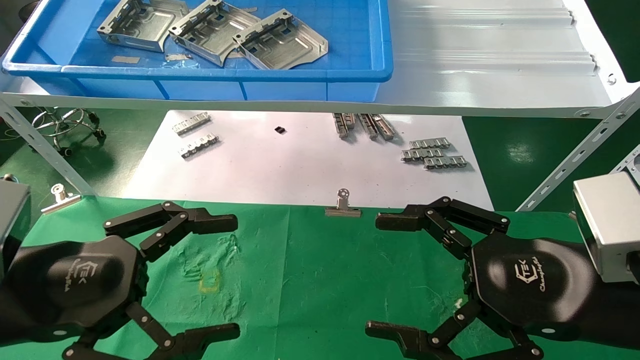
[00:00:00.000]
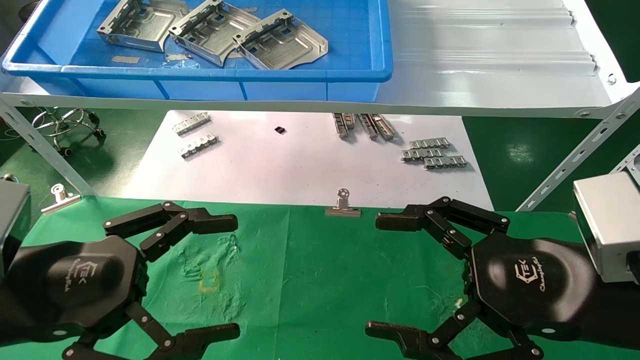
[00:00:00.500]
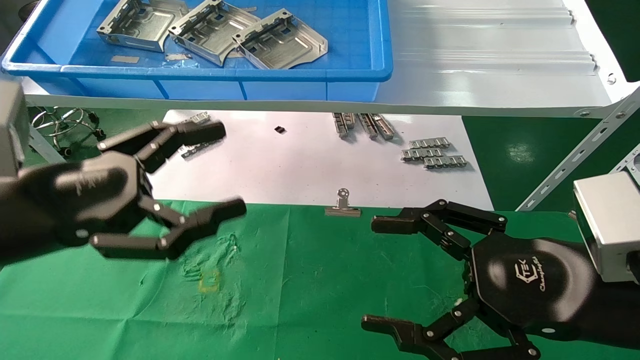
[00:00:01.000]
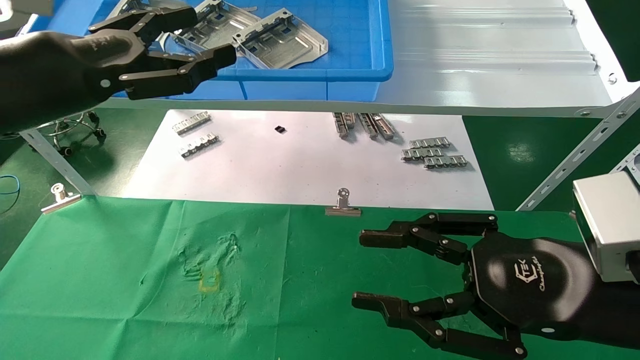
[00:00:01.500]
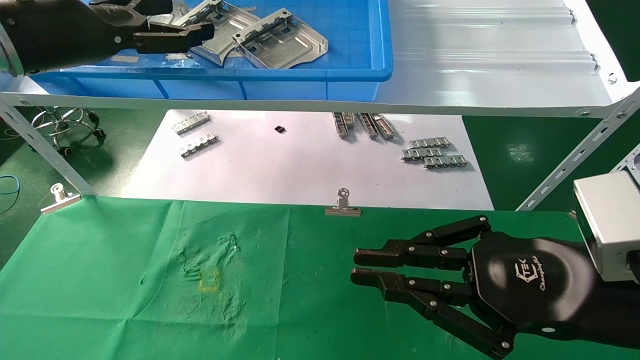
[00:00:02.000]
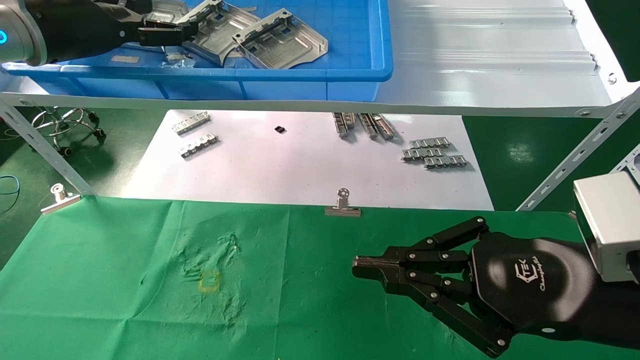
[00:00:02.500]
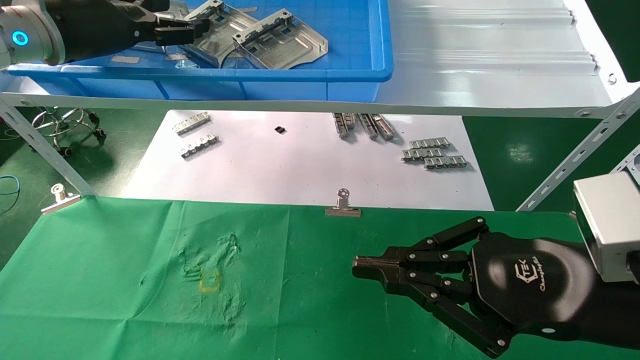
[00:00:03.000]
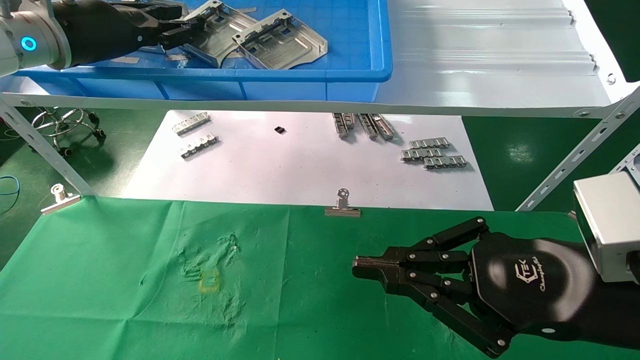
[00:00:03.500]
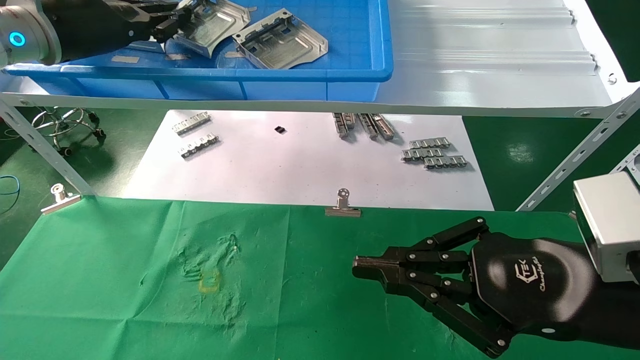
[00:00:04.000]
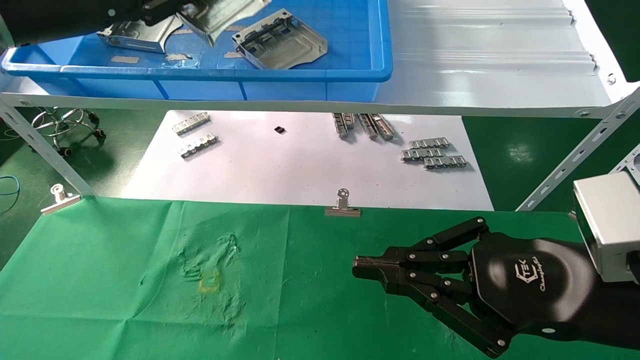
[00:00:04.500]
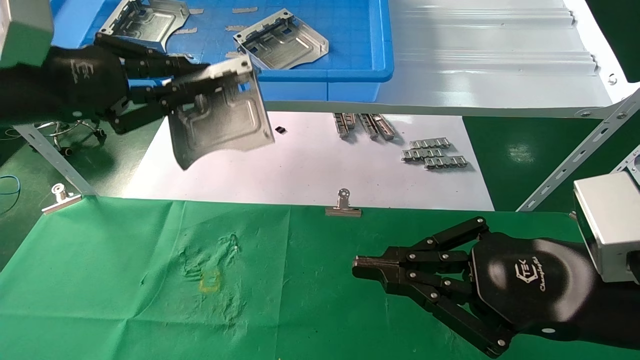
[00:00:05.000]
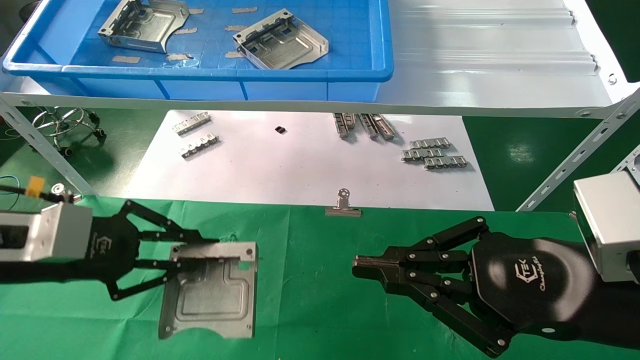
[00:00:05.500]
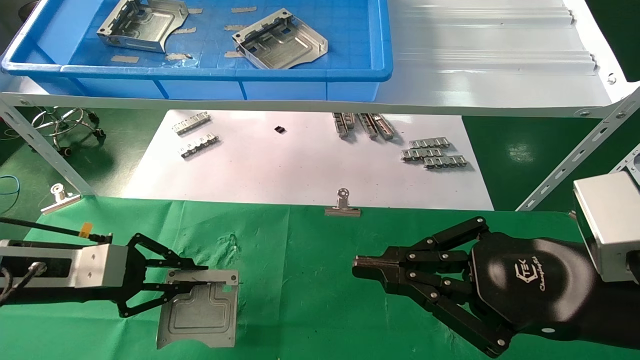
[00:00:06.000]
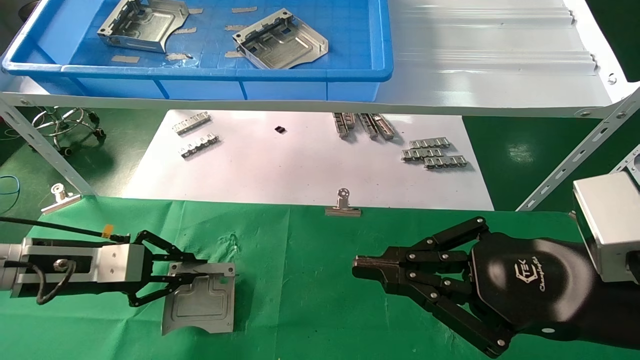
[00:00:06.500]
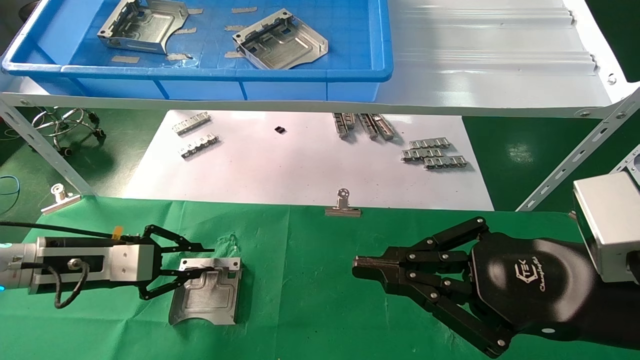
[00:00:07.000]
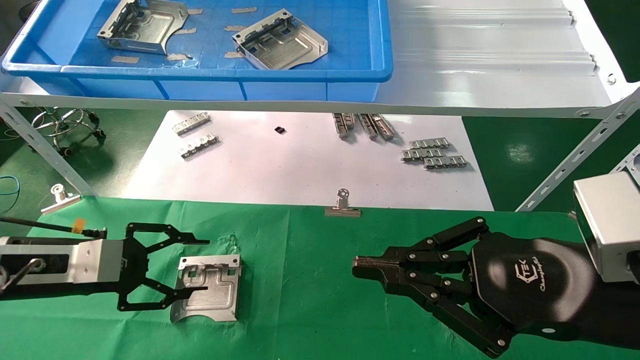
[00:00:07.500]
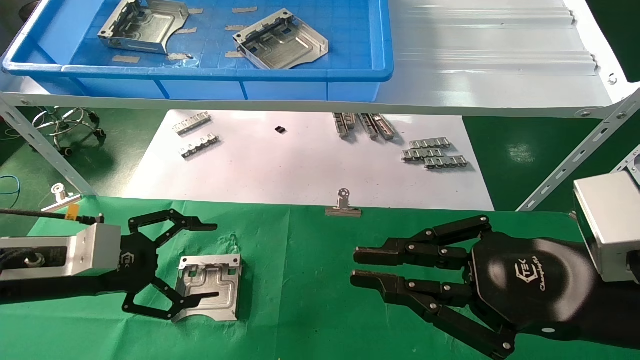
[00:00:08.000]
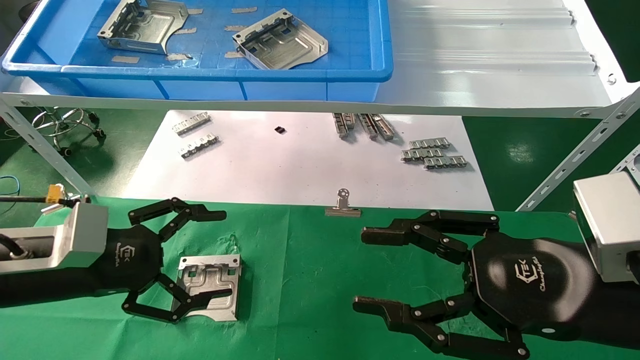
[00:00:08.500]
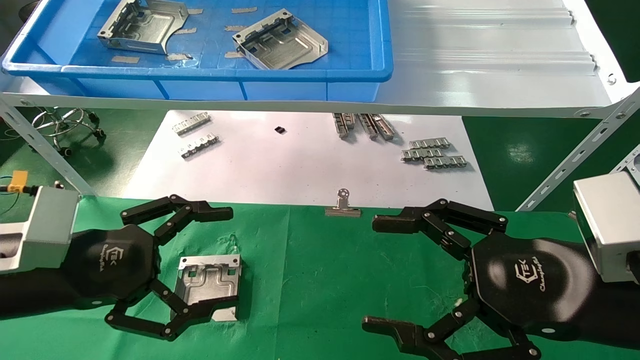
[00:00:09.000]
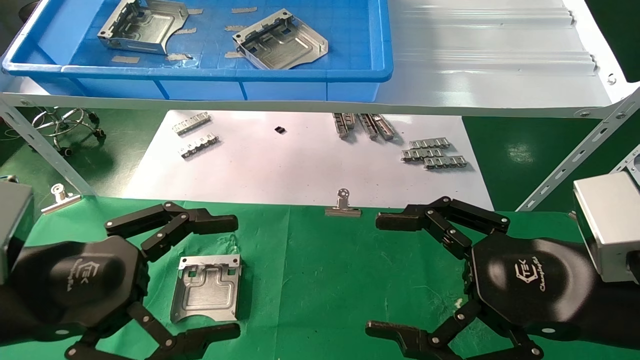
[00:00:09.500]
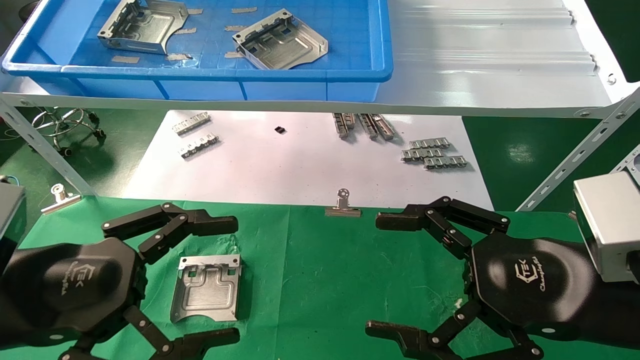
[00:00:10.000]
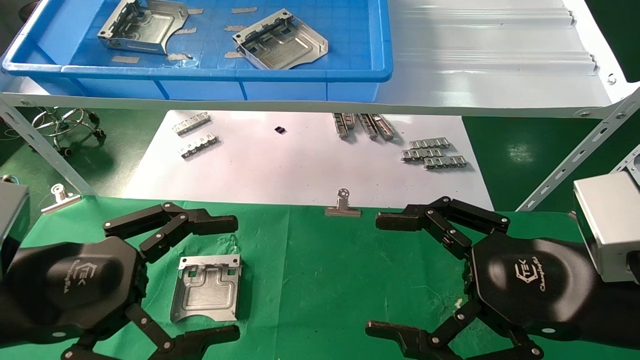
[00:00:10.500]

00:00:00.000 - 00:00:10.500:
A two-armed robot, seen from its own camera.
Task of the whole recording: use the mechanical arm to pick up the parts and place them on the table.
Step, 00:00:01.500 - 00:00:03.500: Pick up the hard drive bracket from the feeding area.
Step, 00:00:04.000 - 00:00:07.000: Place the hard drive bracket into the box.
00:00:00.000 - 00:00:02.000: The right gripper closes, while the left gripper heads upward and forward, covering roughly 25 cm.
00:00:02.000 - 00:00:04.000: The left gripper closes.
00:00:04.000 - 00:00:06.500: The left gripper is displaced downward by about 30 cm.
00:00:06.500 - 00:00:08.500: The right gripper opens up. Meanwhile the left gripper heads backward, covering approximately 5 cm, and opens its fingers.
00:00:08.500 - 00:00:10.500: The right gripper opens its fingers. Meanwhile the left gripper shifts approximately 10 cm backward.

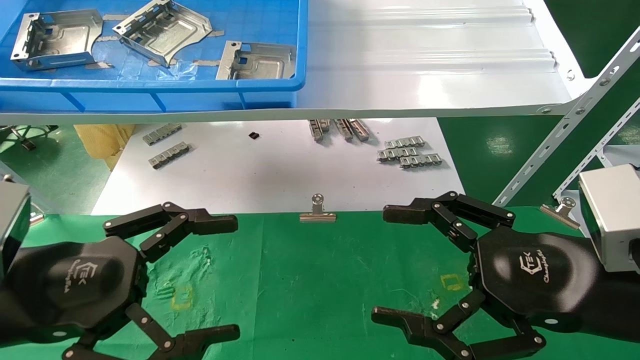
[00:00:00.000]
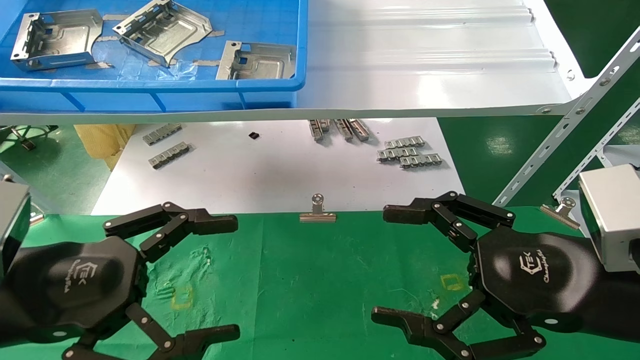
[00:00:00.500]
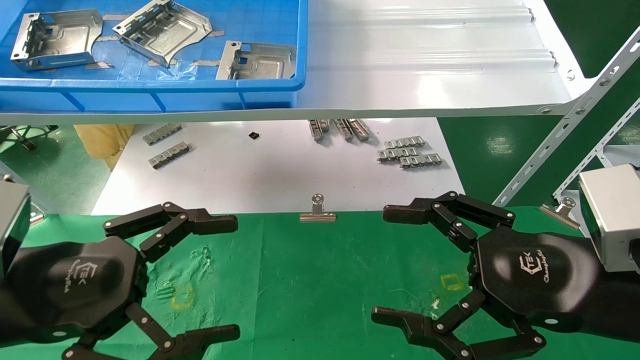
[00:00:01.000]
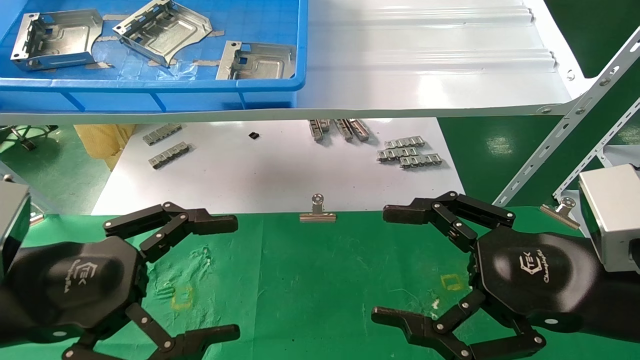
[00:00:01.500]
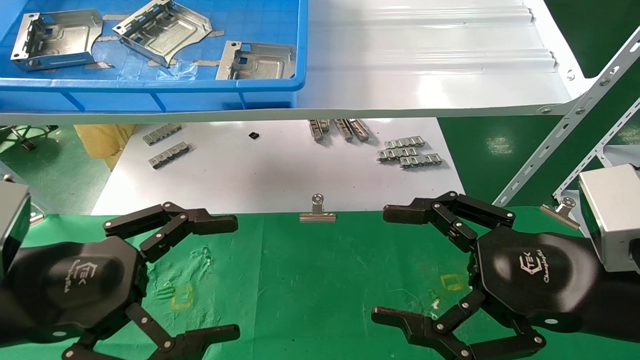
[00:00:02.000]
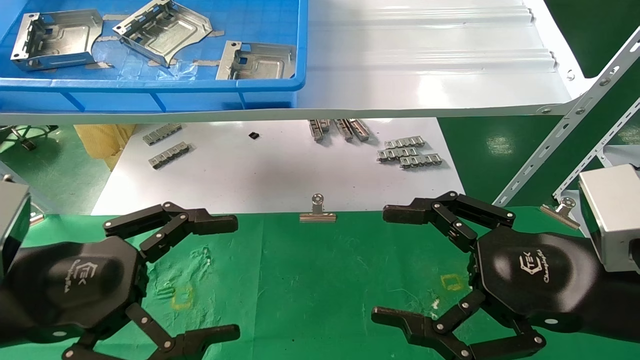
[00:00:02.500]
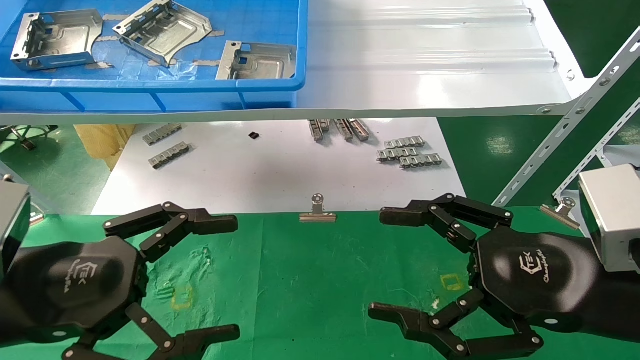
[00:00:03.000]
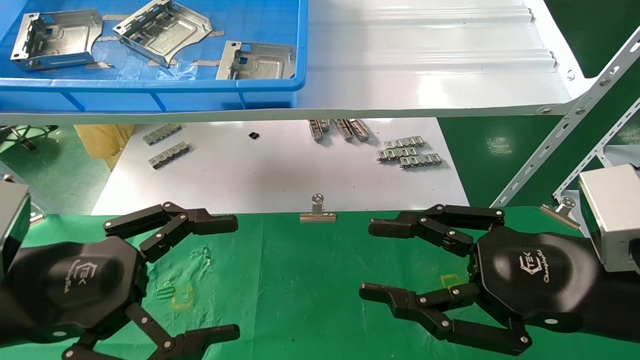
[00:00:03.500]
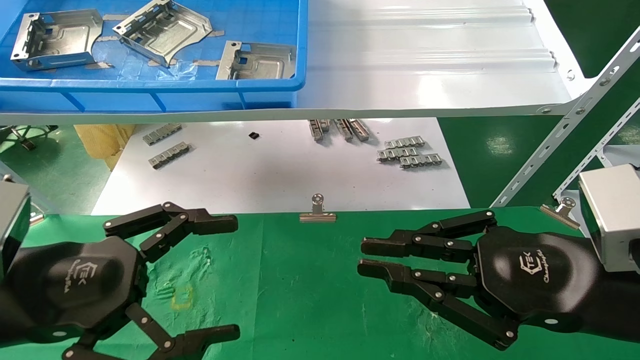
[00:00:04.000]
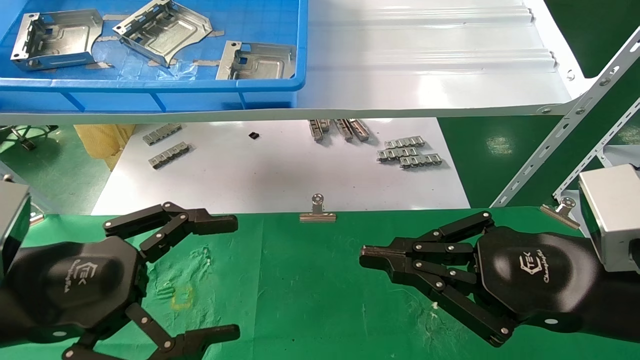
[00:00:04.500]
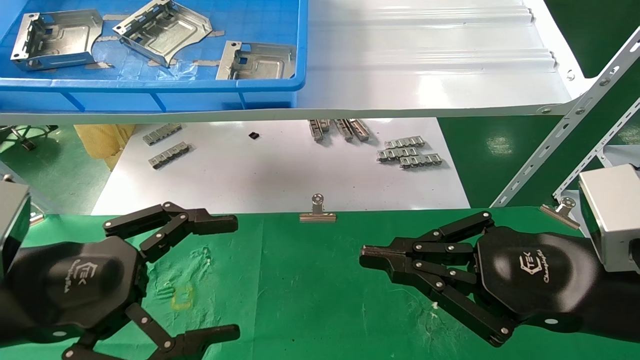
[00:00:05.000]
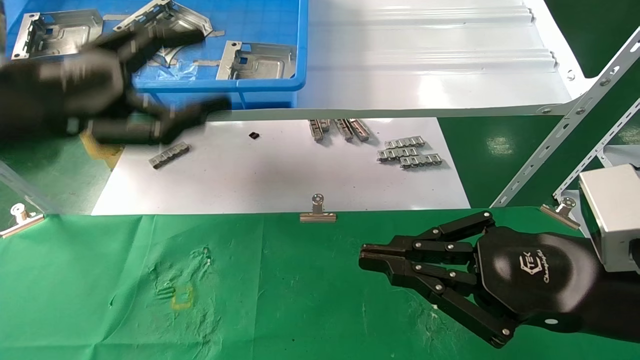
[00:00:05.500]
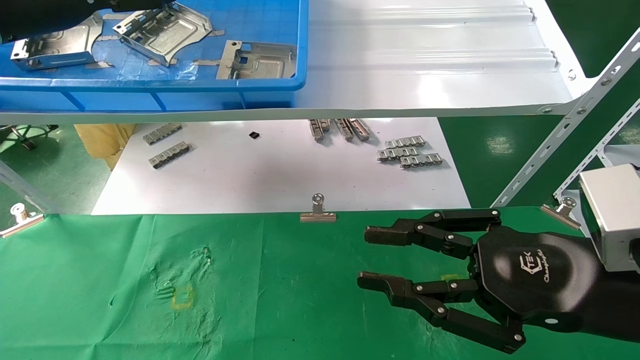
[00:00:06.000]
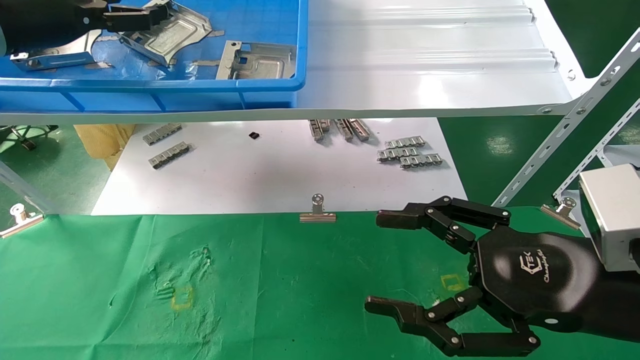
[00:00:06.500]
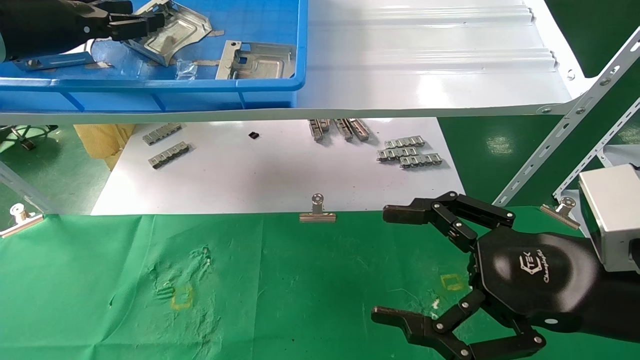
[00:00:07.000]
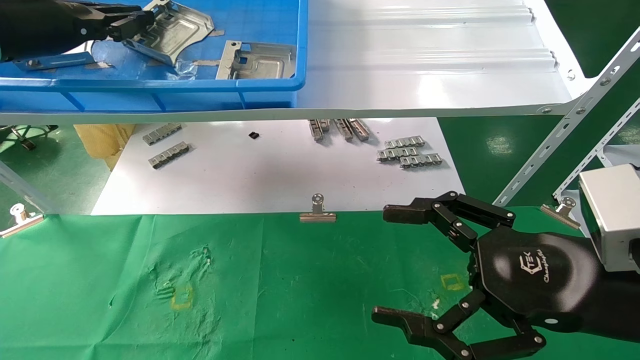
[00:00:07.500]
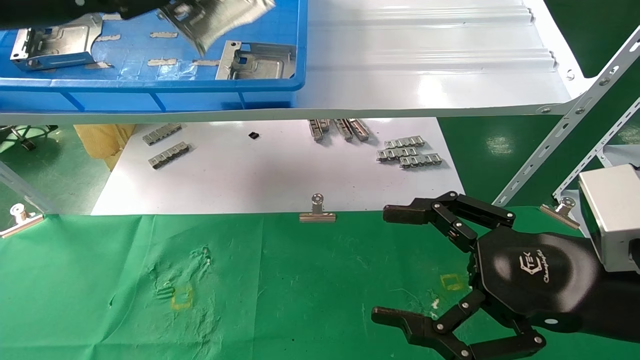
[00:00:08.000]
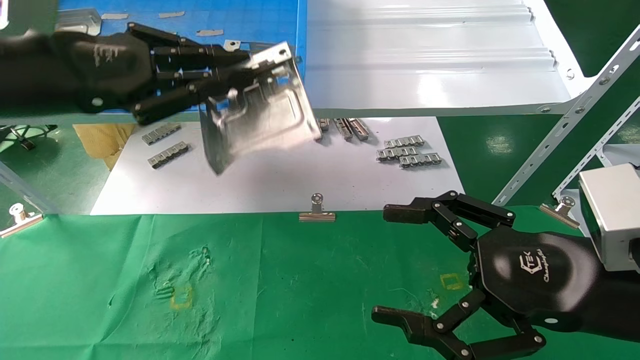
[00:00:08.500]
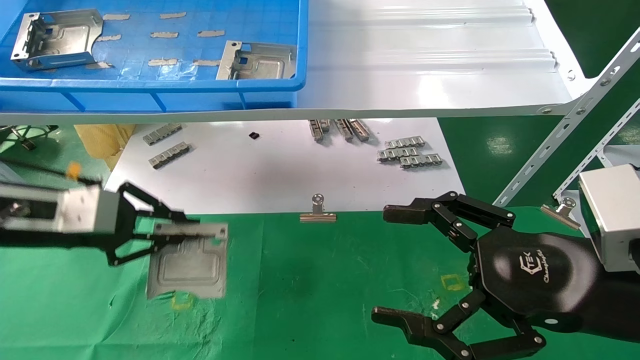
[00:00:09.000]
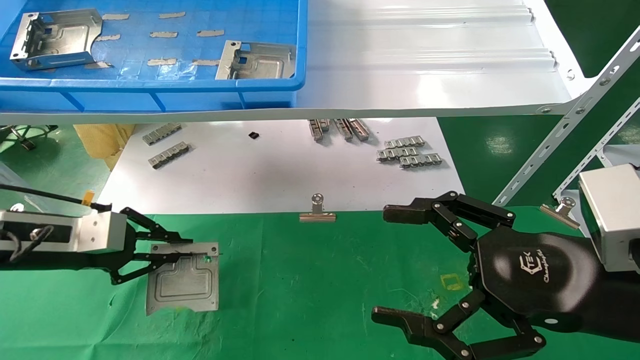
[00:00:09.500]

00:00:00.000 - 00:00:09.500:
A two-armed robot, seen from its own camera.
Task of the whole recording: use the mechanical arm to pick up the parts and place them on the table.
Step, 00:00:05.500 - 00:00:07.500: Pick up the hard drive bracket from the feeding area.
00:00:00.000 - 00:00:02.000: Both grippers stay put.
00:00:02.000 - 00:00:04.000: The right gripper closes up.
00:00:04.000 - 00:00:05.500: The left gripper goes about 15 cm upward and forward.
00:00:05.500 - 00:00:07.500: The right gripper opens. Meanwhile the left gripper goes about 15 cm forward, upward and to the left, and closes its fingers.
00:00:07.500 - 00:00:09.500: The left gripper goes some 25 cm downward.
